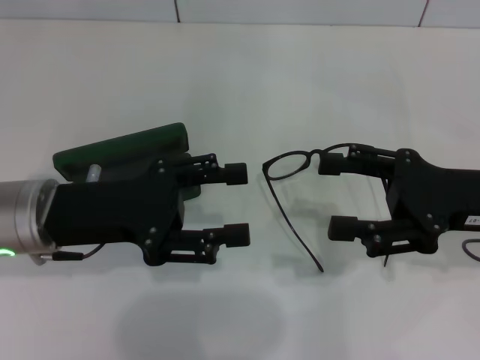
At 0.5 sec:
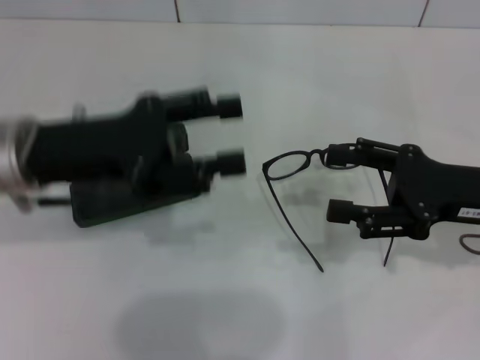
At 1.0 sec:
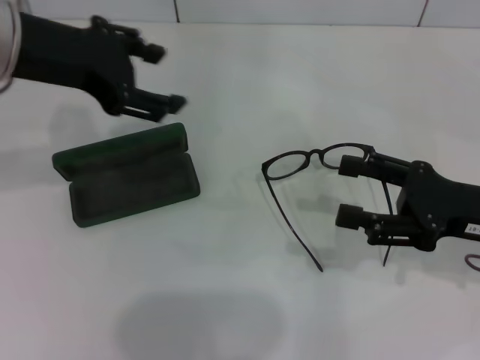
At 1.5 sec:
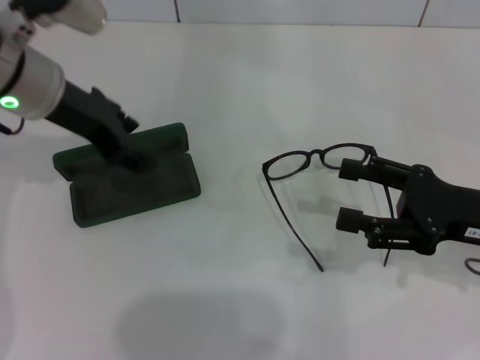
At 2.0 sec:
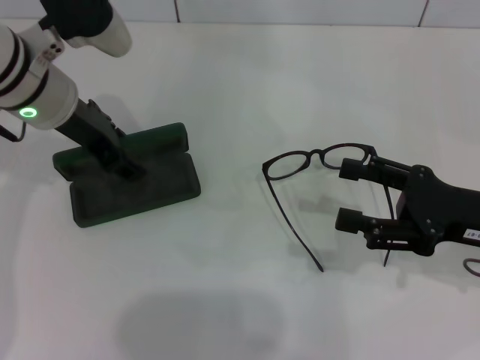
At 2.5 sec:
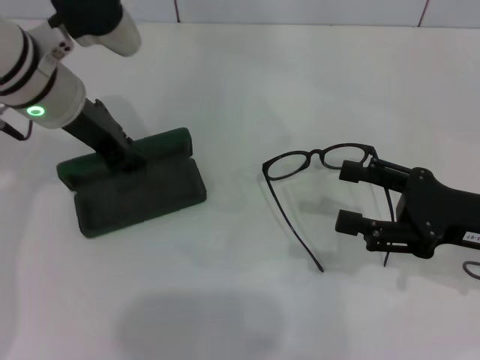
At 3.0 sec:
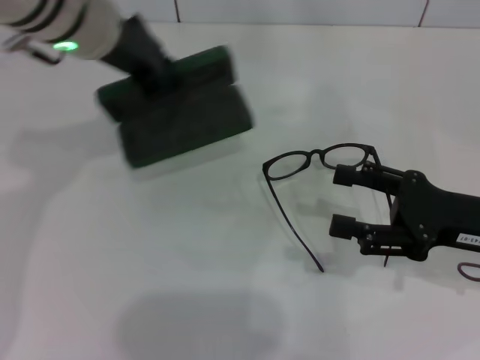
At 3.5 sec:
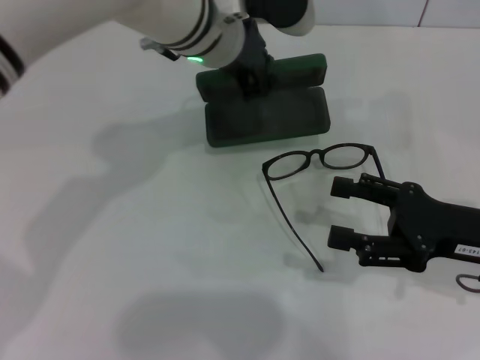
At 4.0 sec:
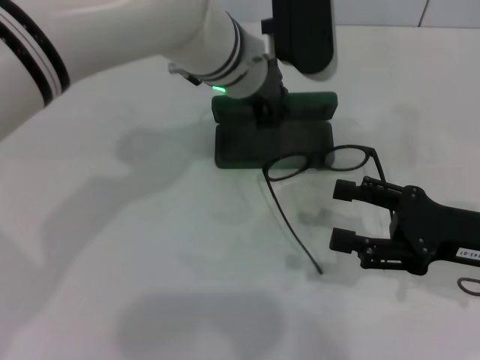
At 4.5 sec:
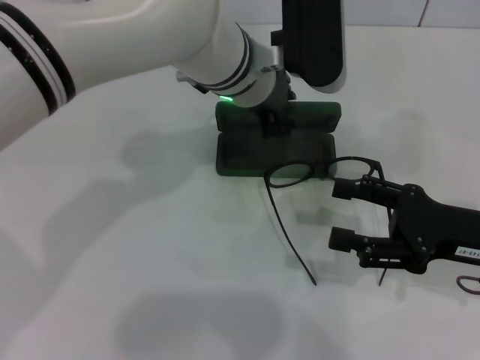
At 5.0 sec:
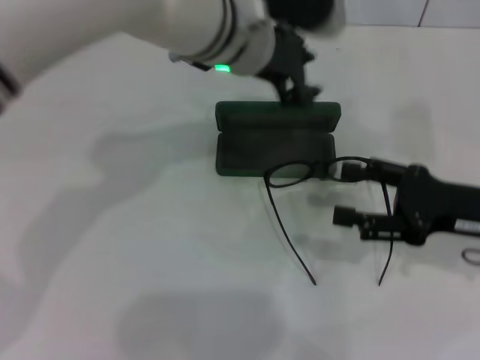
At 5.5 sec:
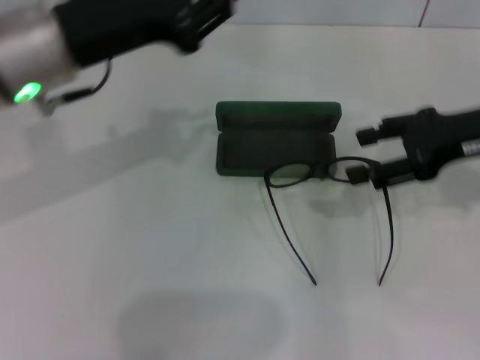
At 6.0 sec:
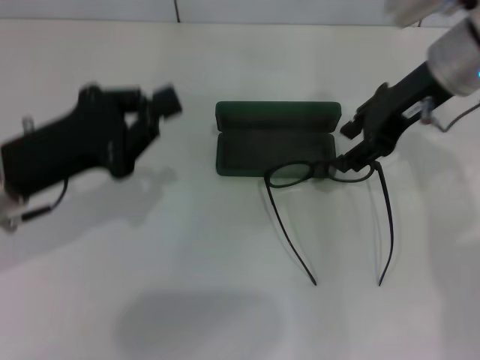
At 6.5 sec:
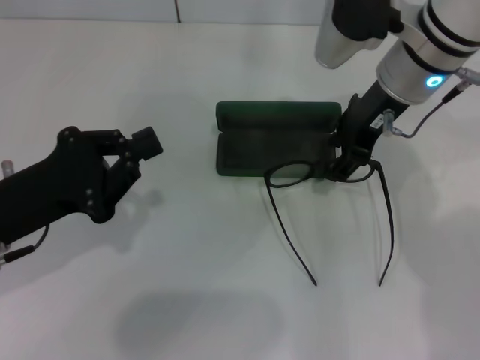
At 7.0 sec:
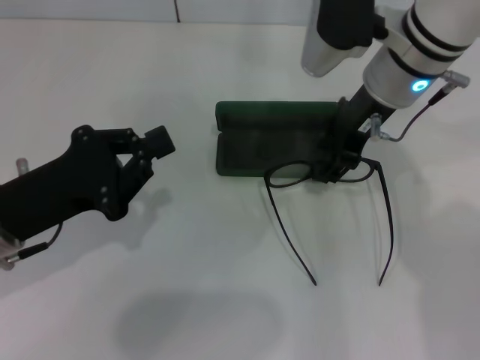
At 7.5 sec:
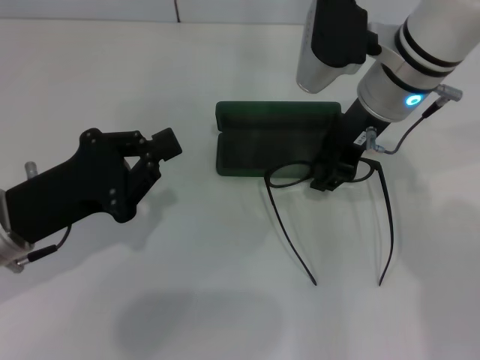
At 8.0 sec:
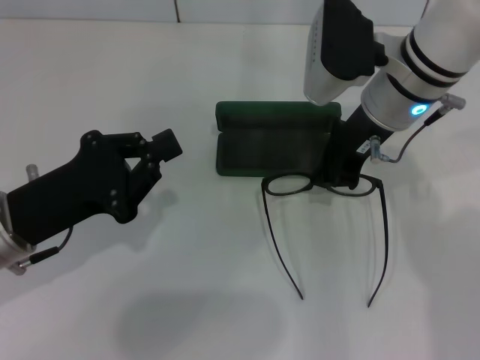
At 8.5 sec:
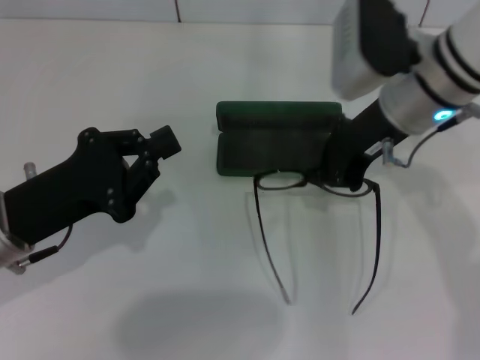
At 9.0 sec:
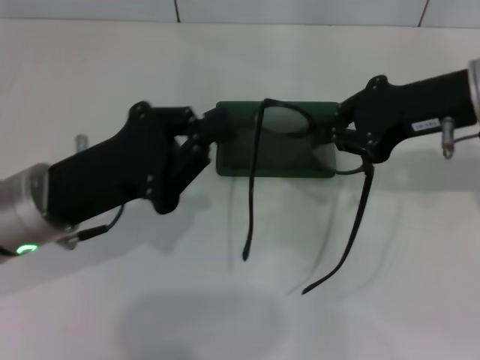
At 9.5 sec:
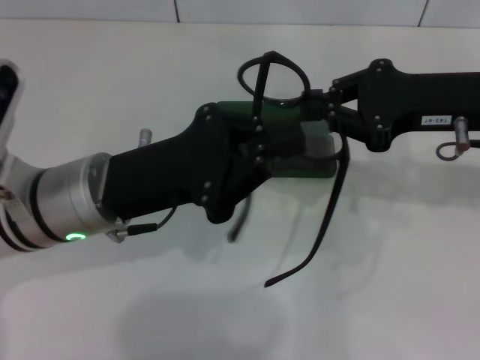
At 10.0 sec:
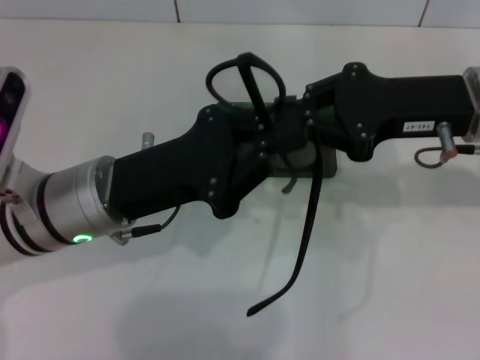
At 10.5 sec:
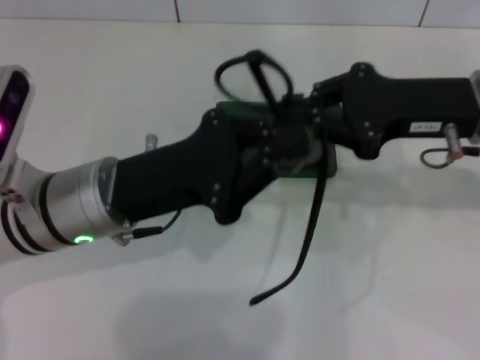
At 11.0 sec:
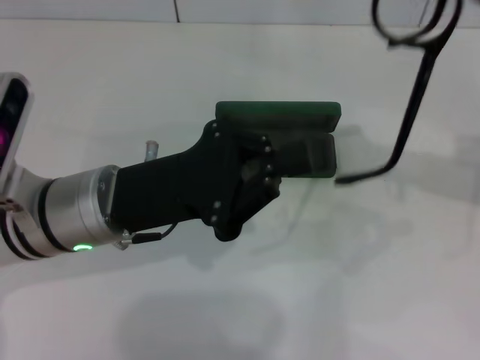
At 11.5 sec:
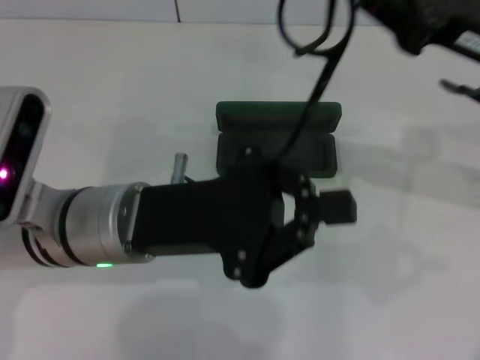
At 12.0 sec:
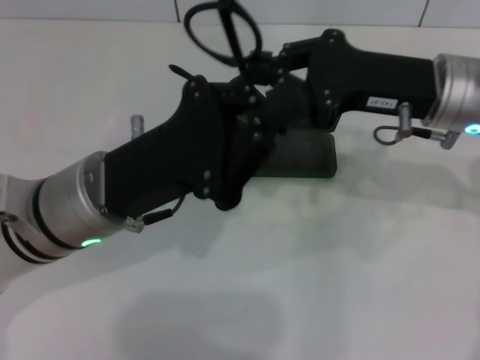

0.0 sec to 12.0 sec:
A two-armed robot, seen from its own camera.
Step, 0.0 sec to 1.5 sec: Grab the glasses case with your left hand.
Step, 2.0 sec to 4.0 sec: Place the glasses case in the center of the table with your left hand.
Step, 4.5 sec to 8.0 sec: Grab the eyeglass frame with your right hand.
0.0 sec to 2.0 sec: The left gripper shifts approximately 15 cm forward and upward.
2.0 sec to 4.0 sec: The left gripper goes some 15 cm to the right, and closes.
4.0 sec to 6.0 sec: The right gripper moves forward, upward and to the left, some 20 cm; the left gripper goes roughly 25 cm to the left and backward.
6.0 sec to 8.0 sec: The right gripper heads to the left, covering roughly 5 cm, and closes up.
8.0 sec to 10.0 sec: The right gripper travels to the right and backward by some 10 cm; the left gripper moves to the right, roughly 10 cm.
10.0 sec to 12.0 sec: The right gripper goes to the right and returns, approximately 10 cm each way.

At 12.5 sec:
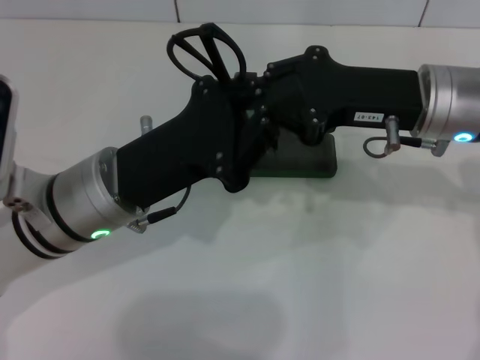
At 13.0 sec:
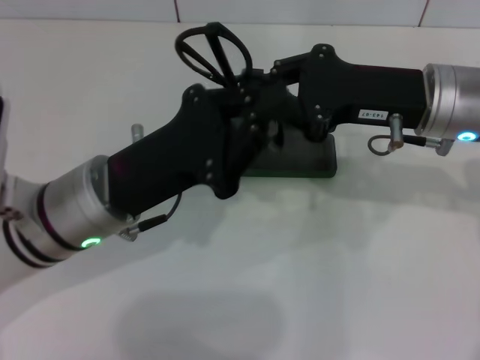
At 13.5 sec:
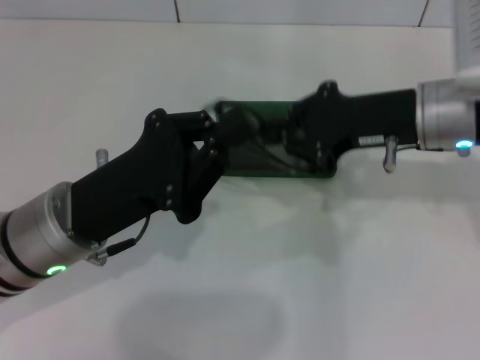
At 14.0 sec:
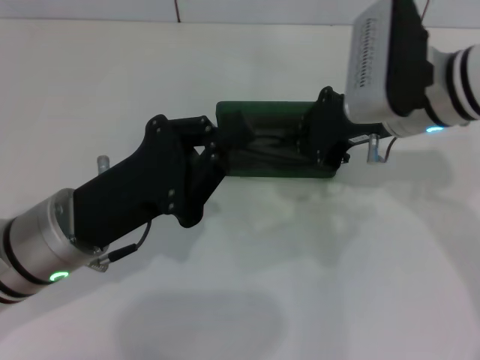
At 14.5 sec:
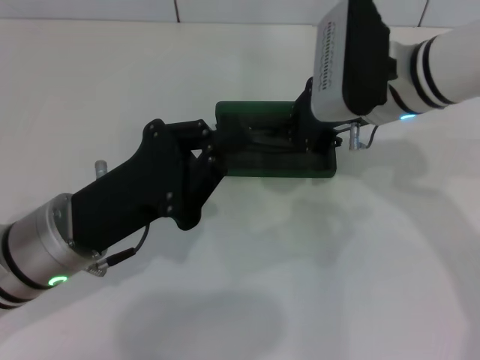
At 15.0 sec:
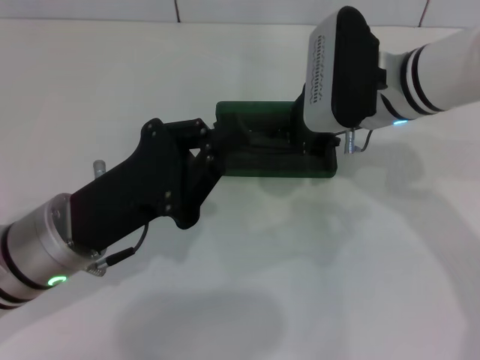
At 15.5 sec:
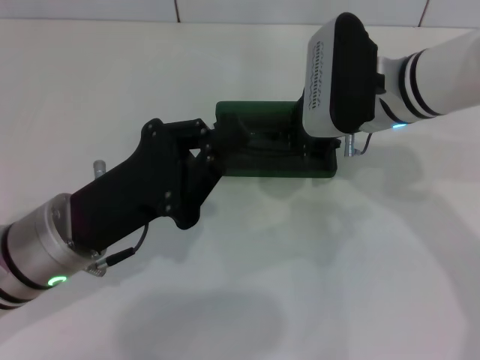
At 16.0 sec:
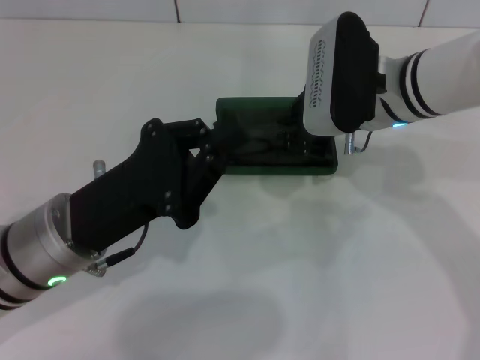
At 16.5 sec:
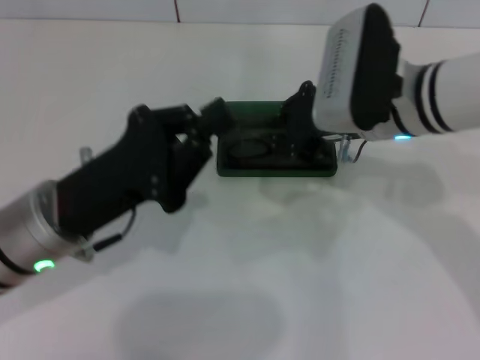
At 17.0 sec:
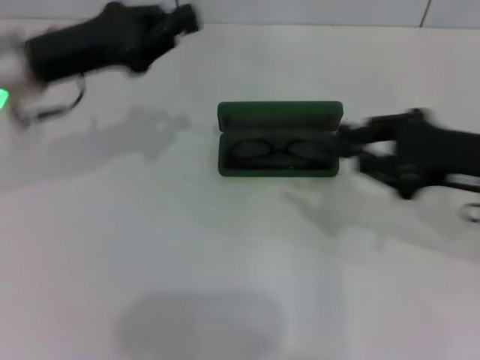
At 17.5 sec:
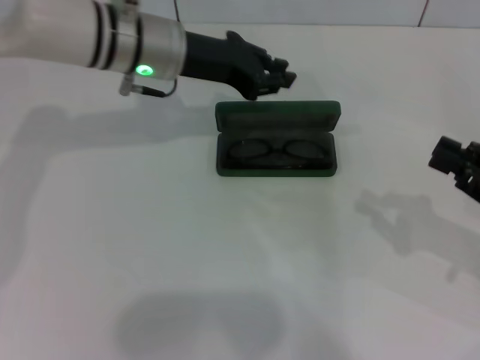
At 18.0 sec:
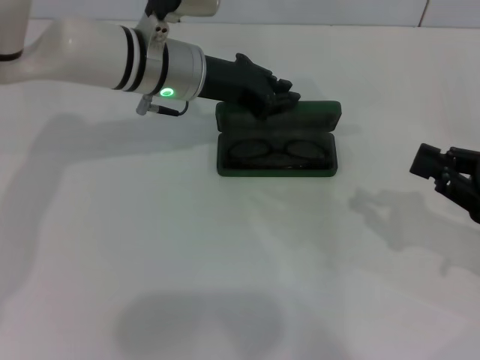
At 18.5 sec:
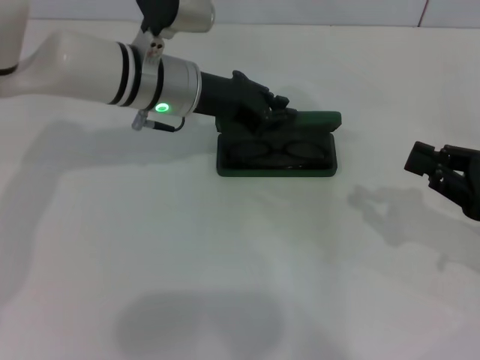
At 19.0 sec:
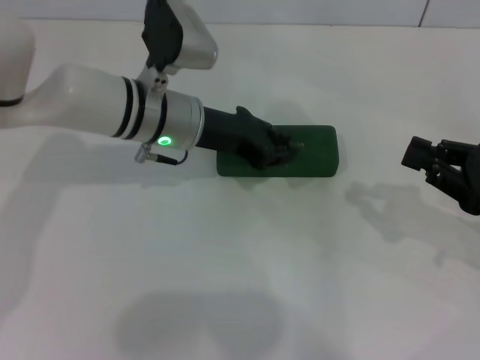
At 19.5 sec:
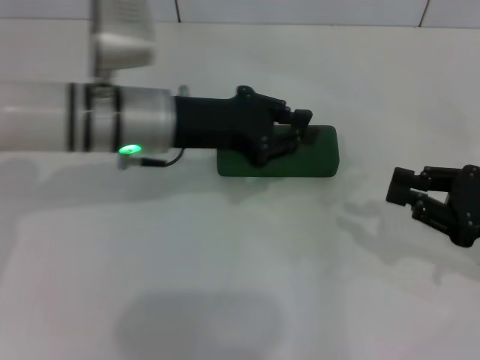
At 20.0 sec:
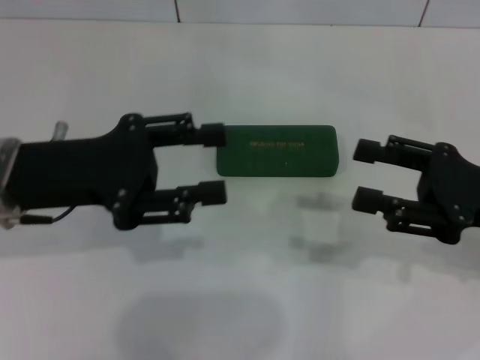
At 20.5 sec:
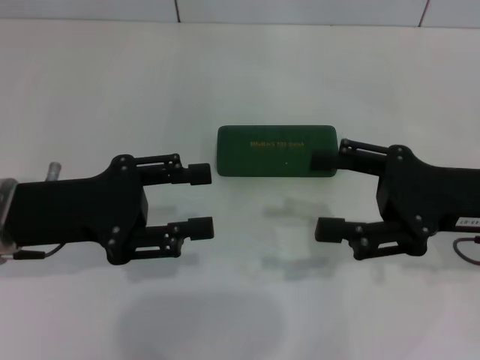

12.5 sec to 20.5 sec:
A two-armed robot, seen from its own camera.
Step, 13.0 sec to 16.0 sec: Put the glasses into the case with your right hand.
Step, 16.5 sec to 18.5 sec: Close the glasses case with your left hand.
12.5 sec to 14.5 sec: The right gripper shifts some 5 cm to the left. The left gripper ends up some 5 cm from where it was.
14.5 sec to 16.5 sec: The grippers stay close to where they were, moving slightly.
16.5 sec to 18.5 sec: The left gripper heads forward and to the right, covering approximately 20 cm. Meanwhile the right gripper shifts some 20 cm to the right and backward.
18.5 sec to 20.5 sec: The right gripper heads to the left, covering some 10 cm, and opens up; the left gripper goes some 20 cm backward and to the left, and opens.
